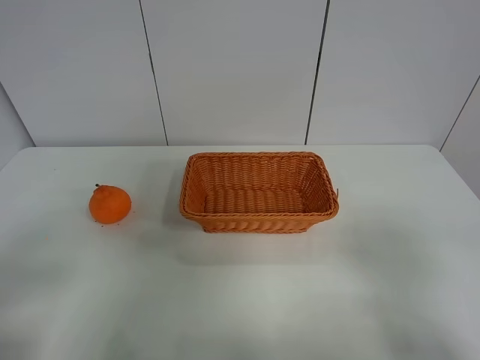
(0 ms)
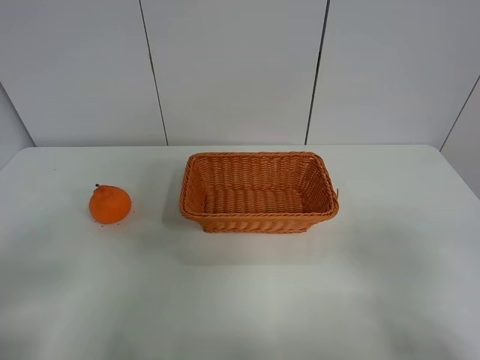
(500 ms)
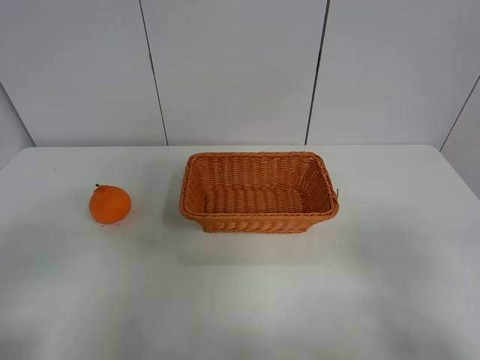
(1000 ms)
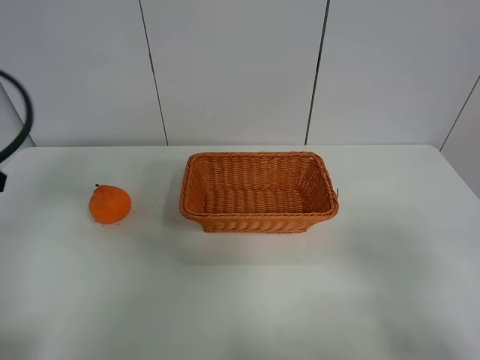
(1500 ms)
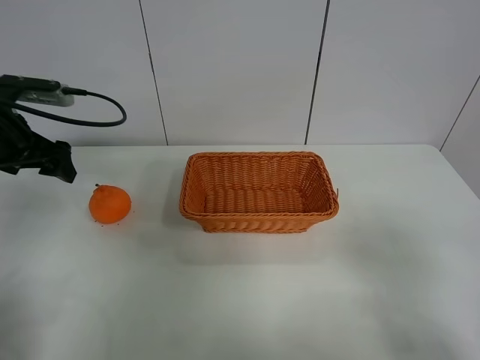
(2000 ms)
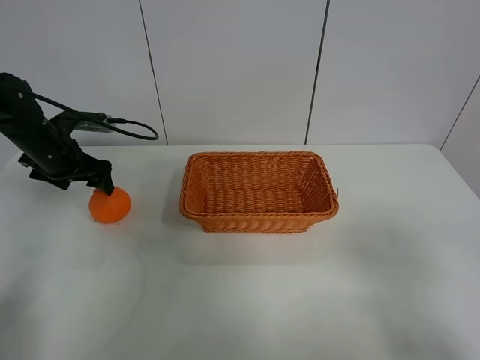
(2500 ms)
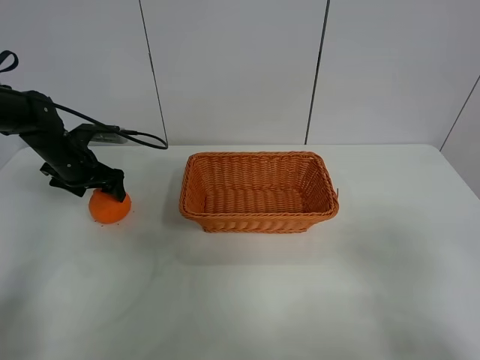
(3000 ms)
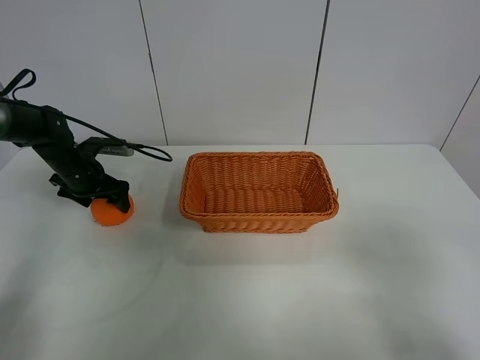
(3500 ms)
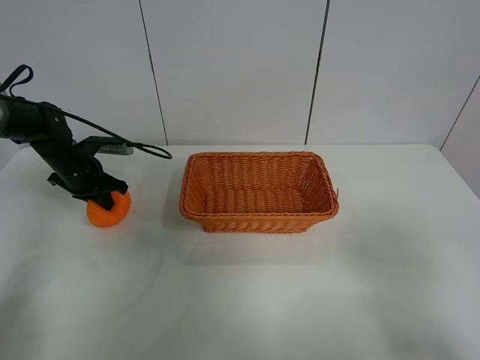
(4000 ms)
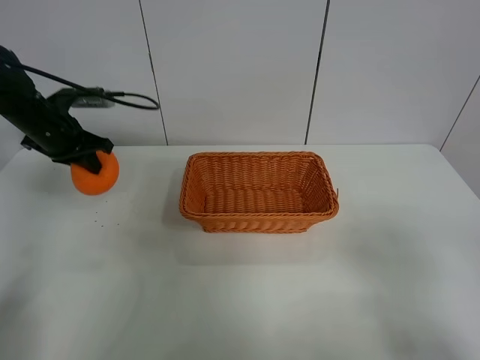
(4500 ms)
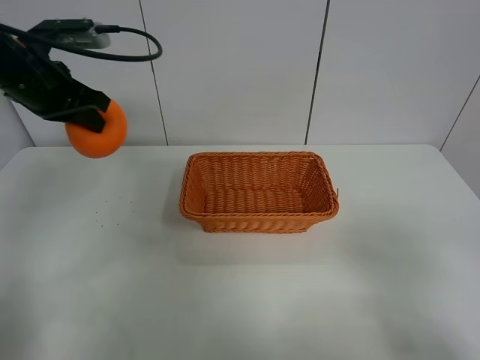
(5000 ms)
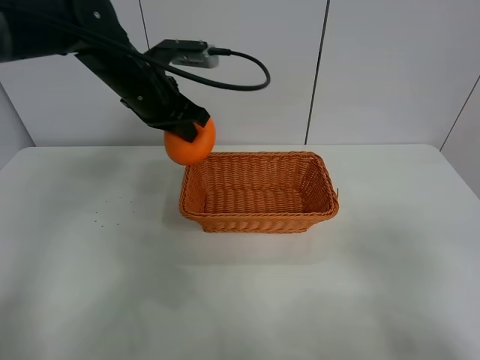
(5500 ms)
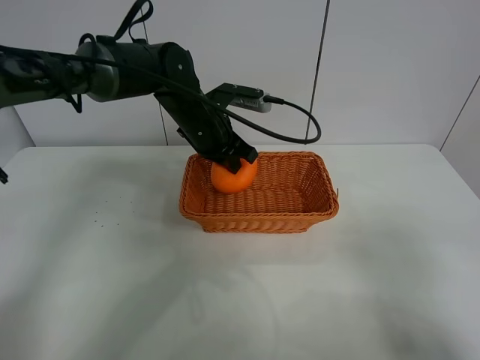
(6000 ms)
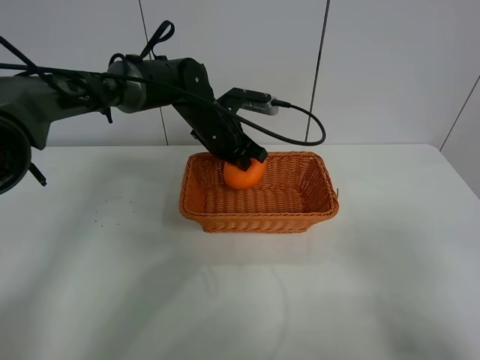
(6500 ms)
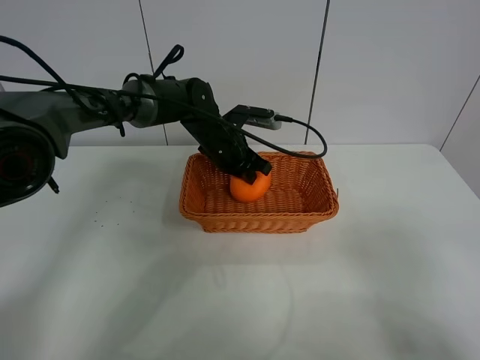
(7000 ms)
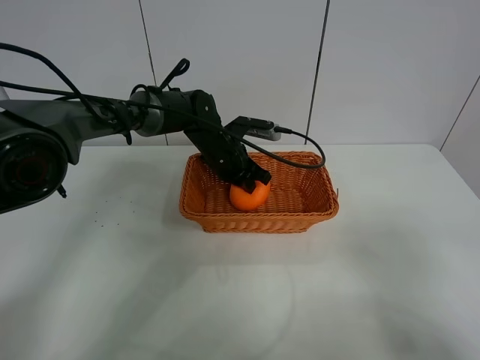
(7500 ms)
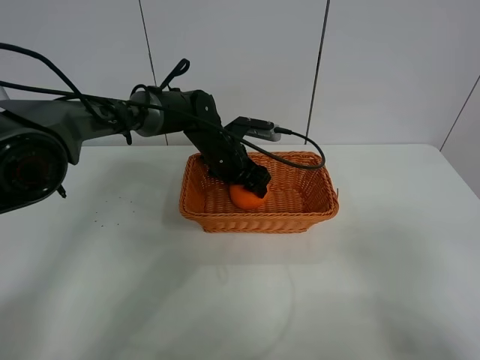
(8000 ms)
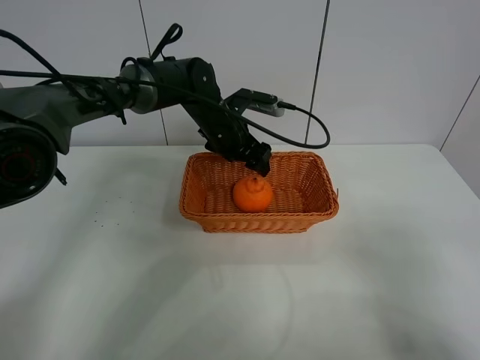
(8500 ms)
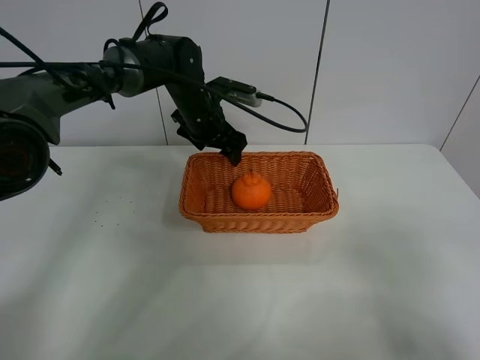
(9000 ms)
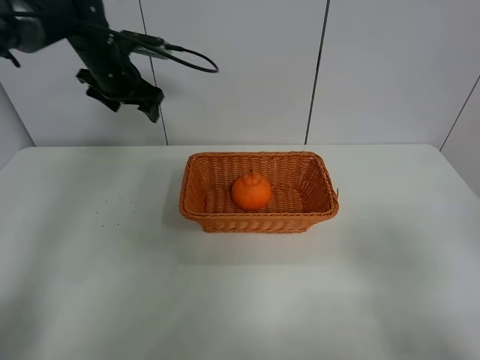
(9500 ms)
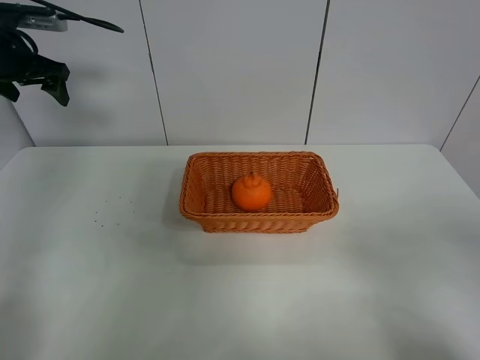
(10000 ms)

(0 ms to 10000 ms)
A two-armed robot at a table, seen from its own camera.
Task of the whole recording: left gripper grabs oranges and puts them in the basket.
Step, 0 ms - 4000 ms: Grasp the orange with left gripper.
Step, 4500 ms - 9000 ms: Place the orange in the basket with left gripper.
0 ms - 2000 ms: The left gripper goes roughly 35 cm forward.
2000 ms - 4000 ms: The left gripper goes approximately 15 cm downward and forward, and closes its fingers.
4000 ms - 6000 ms: The left gripper is displaced to the right by approximately 25 cm.
6000 ms - 8000 ms: The left gripper travels downward by some 5 cm, and opens.
8000 ms - 10000 ms: The left gripper shifts about 35 cm to the left and upward.

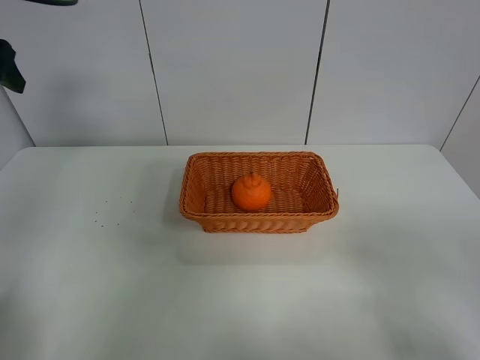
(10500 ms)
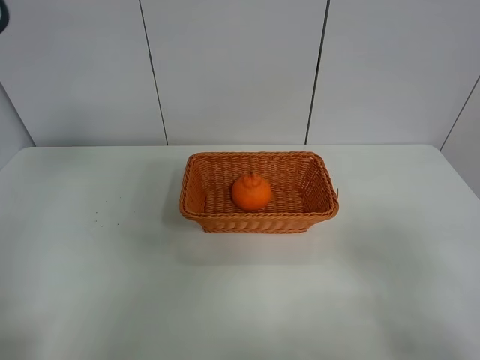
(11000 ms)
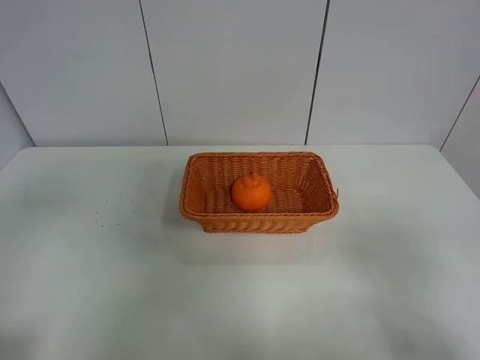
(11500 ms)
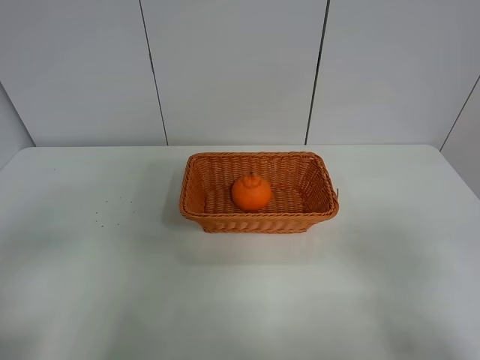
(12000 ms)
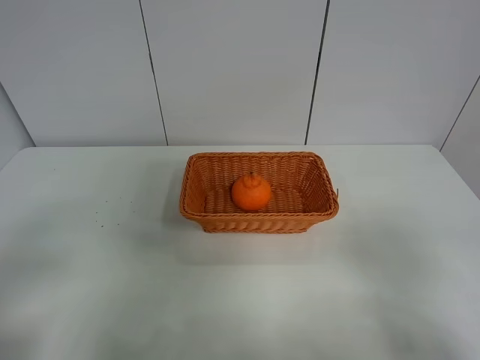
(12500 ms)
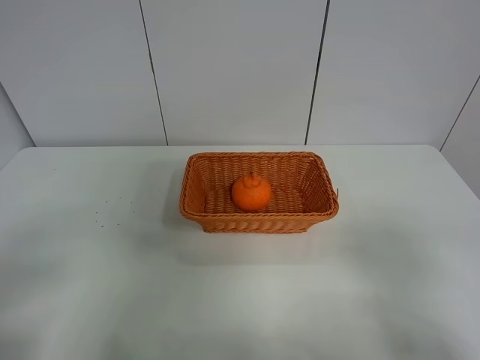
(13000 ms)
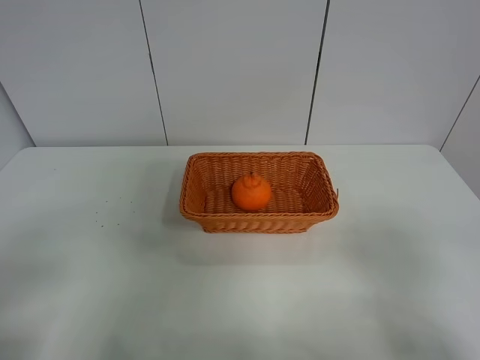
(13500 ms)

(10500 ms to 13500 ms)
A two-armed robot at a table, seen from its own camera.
Task of the whole recording: left gripper grabs oranges and puts them in the basket.
10500 ms - 12000 ms: The left gripper is displaced backward by some 30 cm.

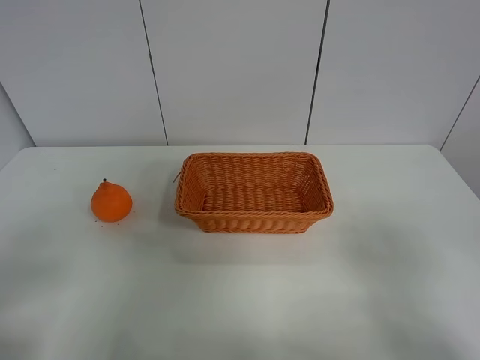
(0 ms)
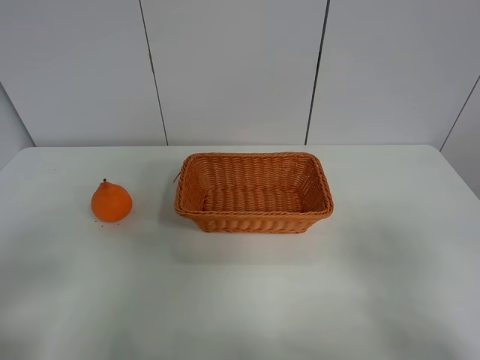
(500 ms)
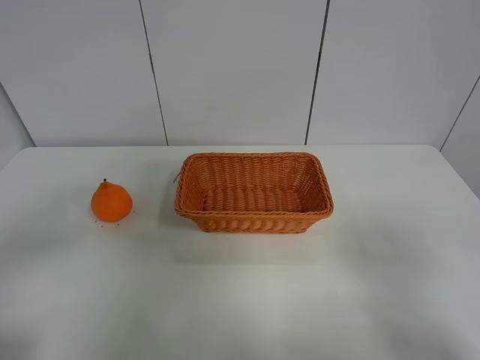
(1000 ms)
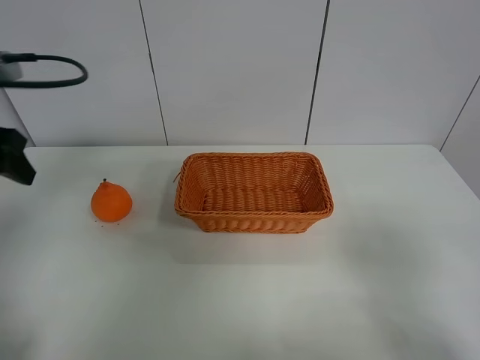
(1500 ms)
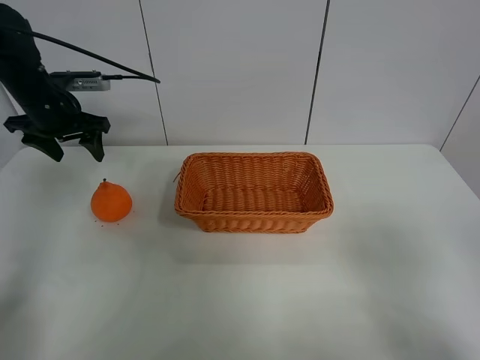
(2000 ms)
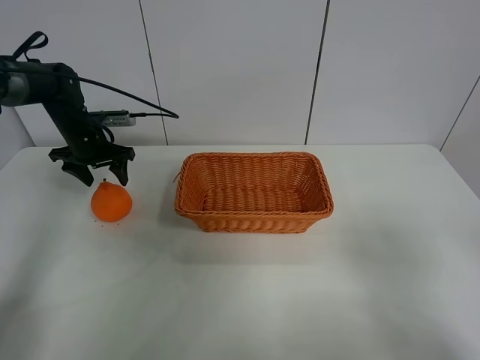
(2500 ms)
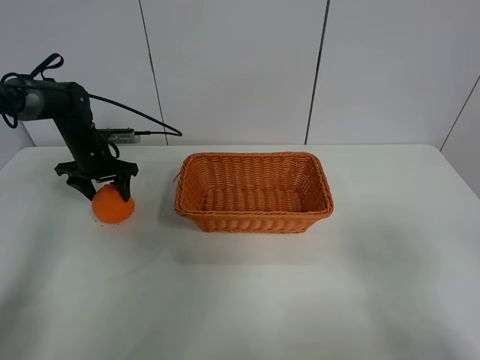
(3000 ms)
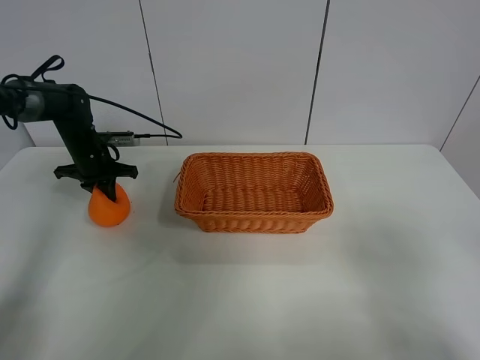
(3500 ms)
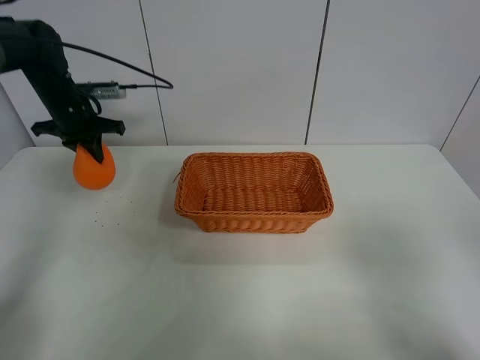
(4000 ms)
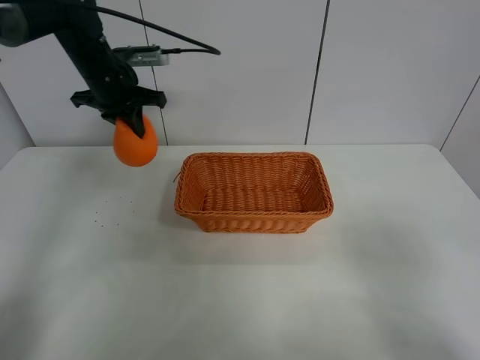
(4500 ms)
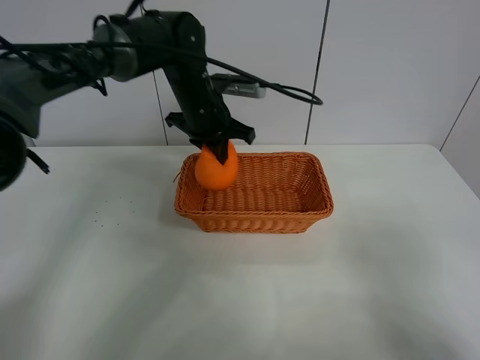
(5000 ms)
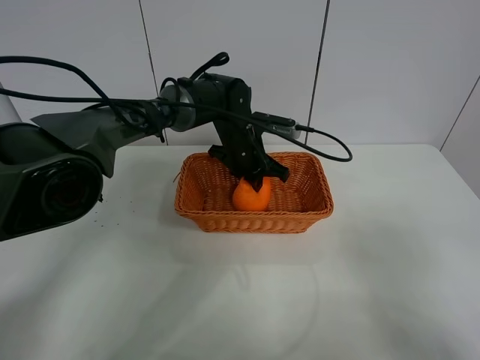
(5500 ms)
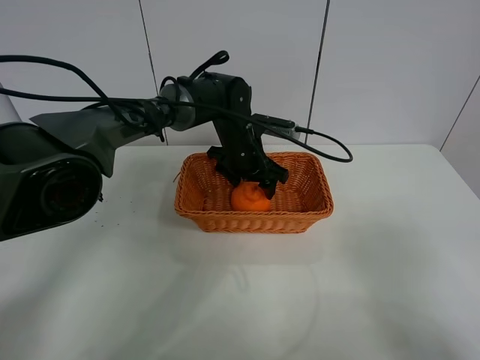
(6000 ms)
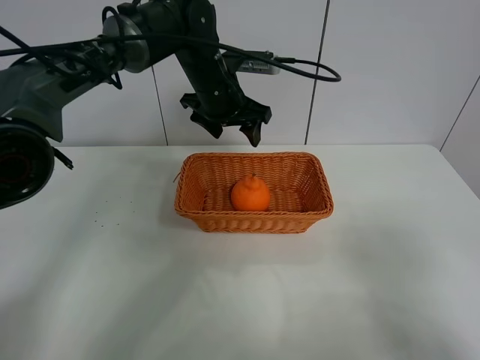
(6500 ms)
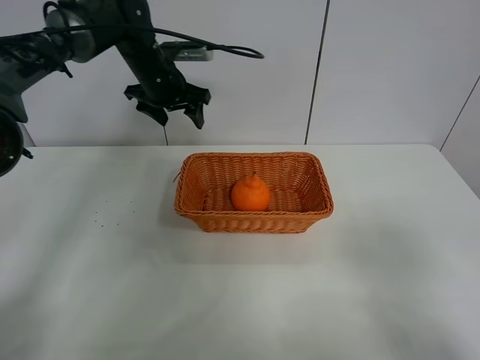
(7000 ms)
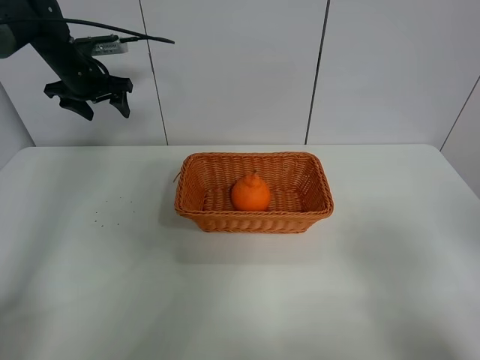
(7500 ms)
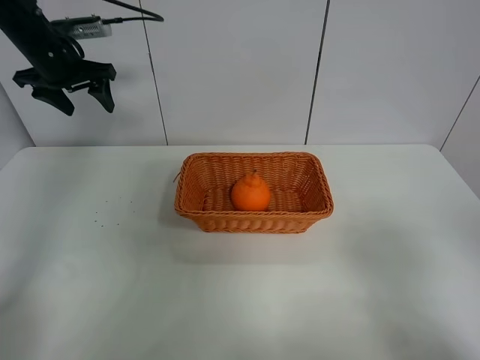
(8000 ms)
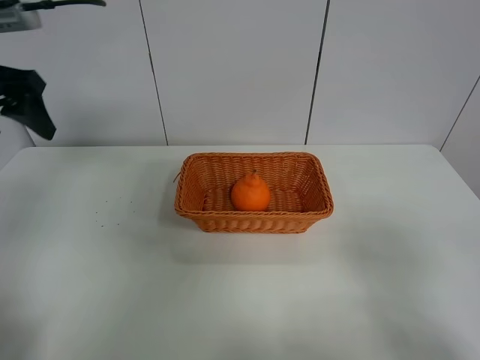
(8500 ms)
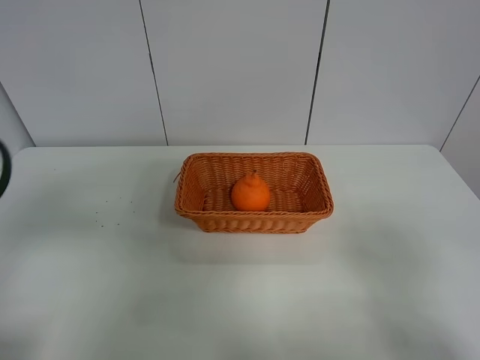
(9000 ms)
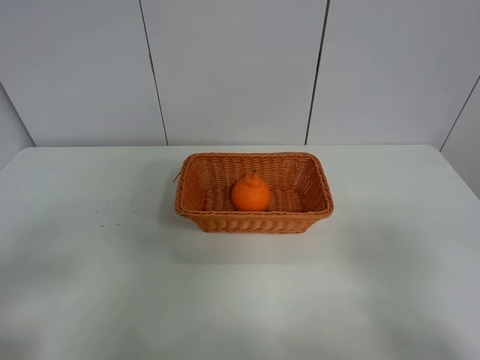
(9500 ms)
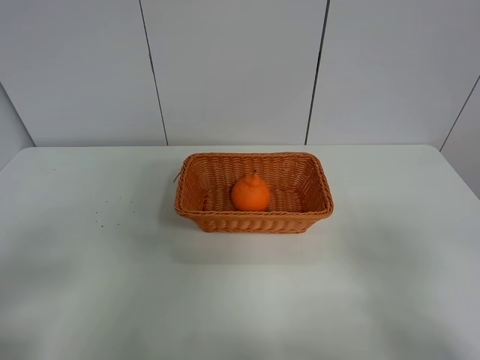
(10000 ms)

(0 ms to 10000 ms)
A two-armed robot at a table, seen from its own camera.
Task of the whole recording: left gripper grabs oranges and puts them in the basket.
Step, 0 ms - 3500 ms: Grasp the orange with left gripper.
Step, 4000 ms - 7000 ms: Place the orange in the basket with left gripper.
0 ms - 2000 ms: The left gripper moves forward, approximately 40 cm.
2000 ms - 4000 ms: The left gripper moves about 10 cm downward and comes back, and closes up.
4000 ms - 6000 ms: The left gripper is displaced to the right by some 30 cm, and opens its fingers.
6000 ms - 8000 ms: The left gripper moves to the left and upward, some 35 cm.
8000 ms - 10000 ms: The left gripper is displaced backward by about 50 cm.
